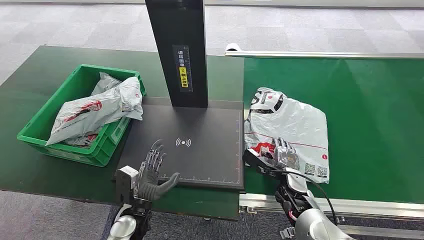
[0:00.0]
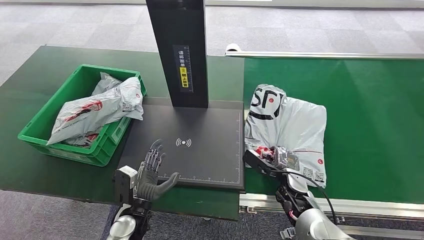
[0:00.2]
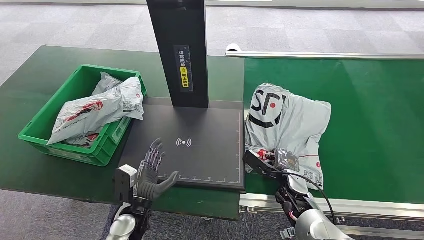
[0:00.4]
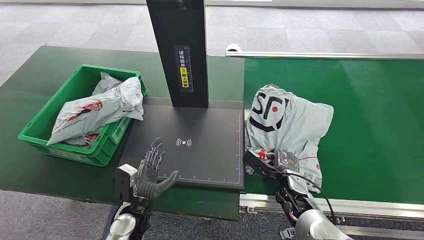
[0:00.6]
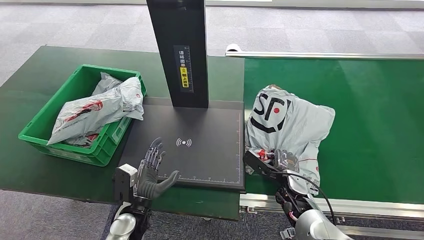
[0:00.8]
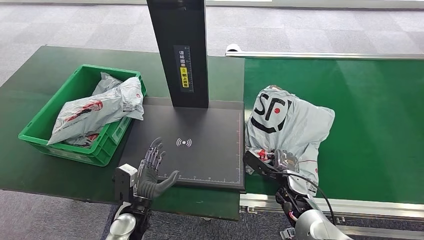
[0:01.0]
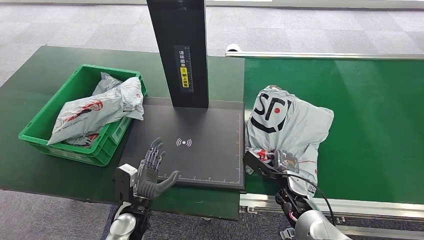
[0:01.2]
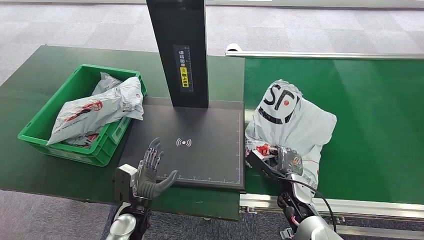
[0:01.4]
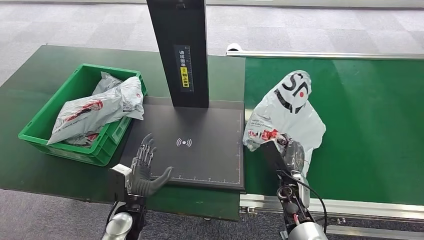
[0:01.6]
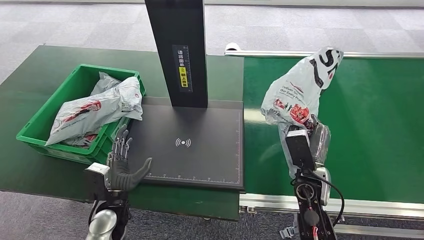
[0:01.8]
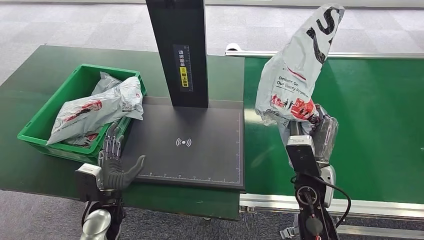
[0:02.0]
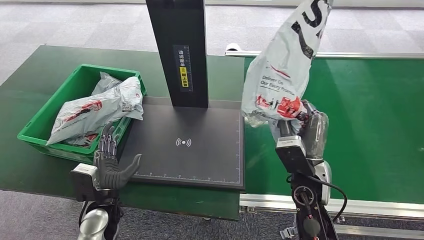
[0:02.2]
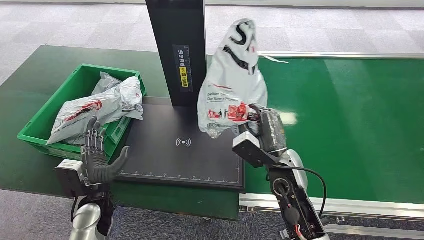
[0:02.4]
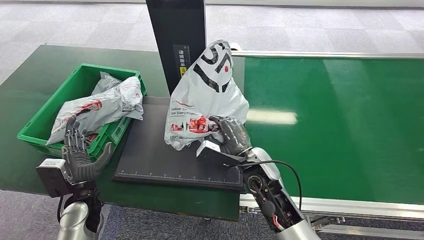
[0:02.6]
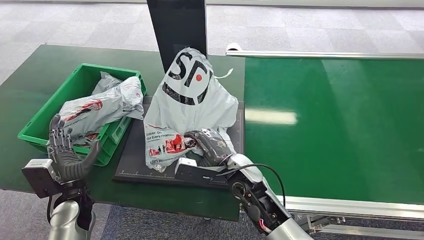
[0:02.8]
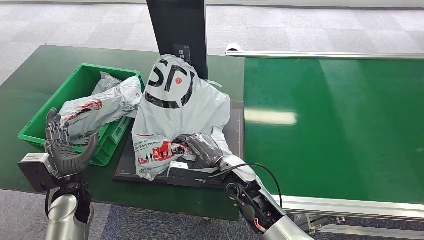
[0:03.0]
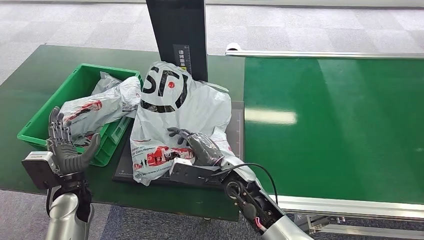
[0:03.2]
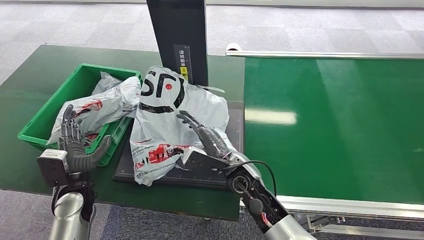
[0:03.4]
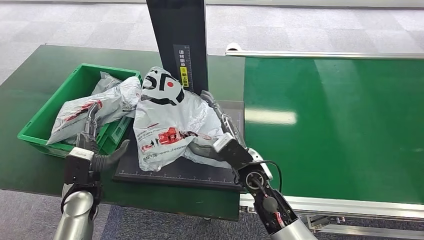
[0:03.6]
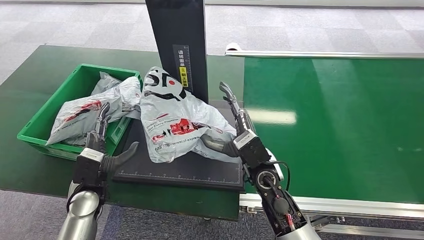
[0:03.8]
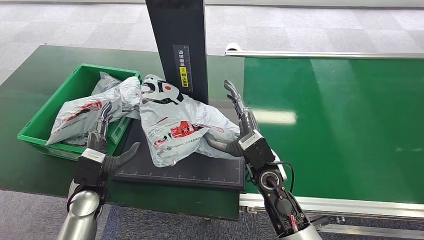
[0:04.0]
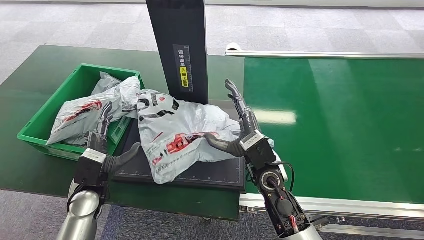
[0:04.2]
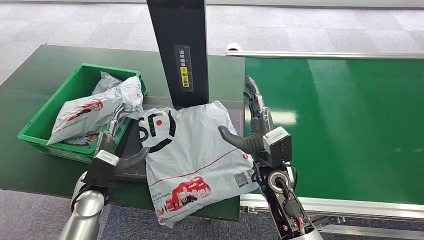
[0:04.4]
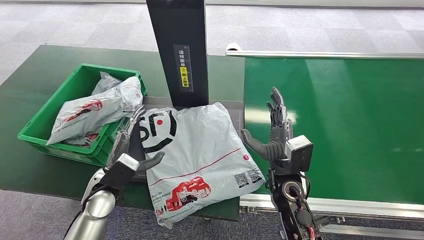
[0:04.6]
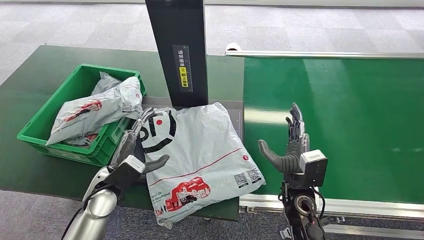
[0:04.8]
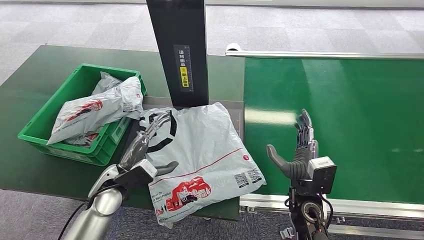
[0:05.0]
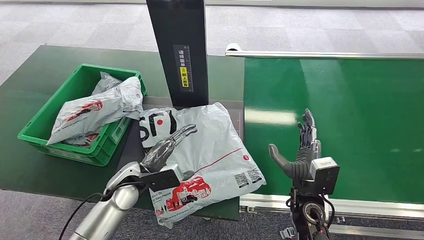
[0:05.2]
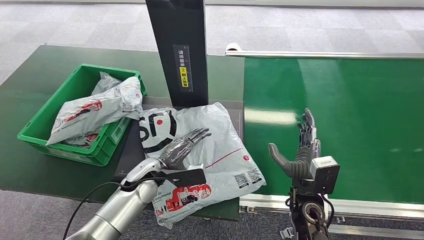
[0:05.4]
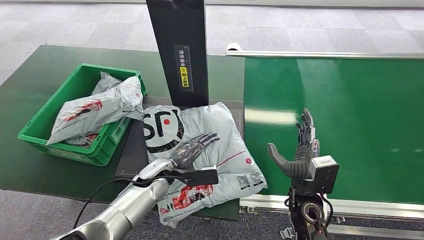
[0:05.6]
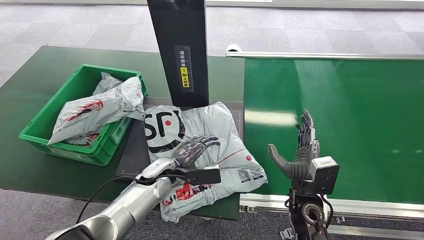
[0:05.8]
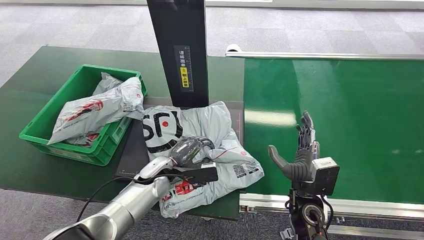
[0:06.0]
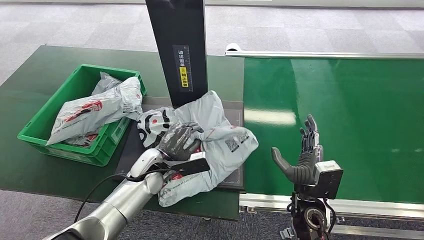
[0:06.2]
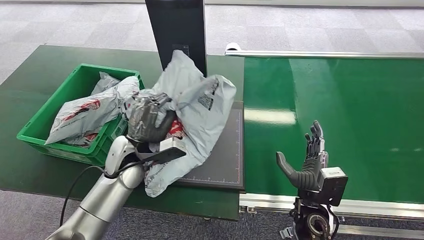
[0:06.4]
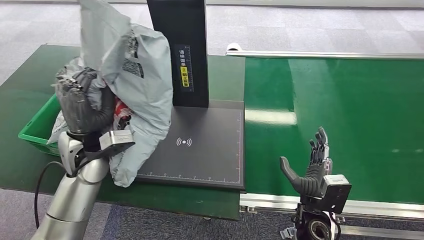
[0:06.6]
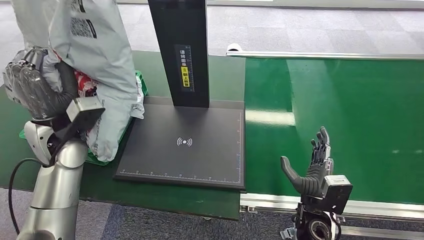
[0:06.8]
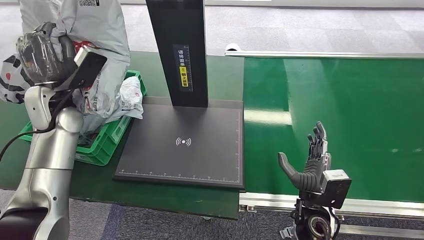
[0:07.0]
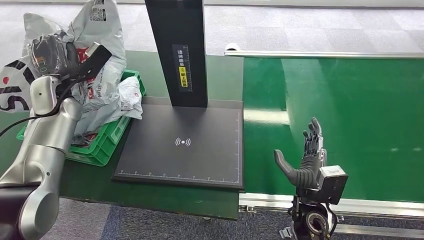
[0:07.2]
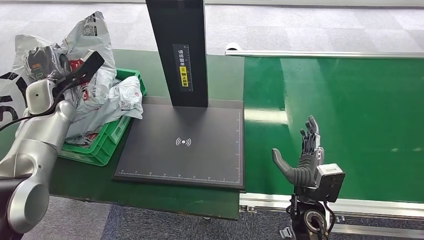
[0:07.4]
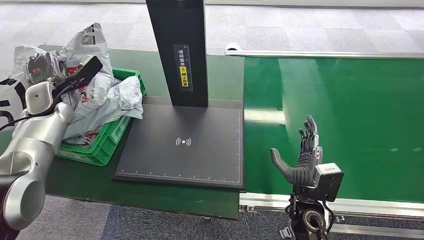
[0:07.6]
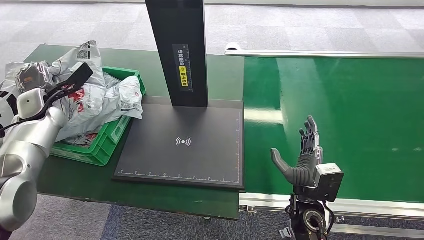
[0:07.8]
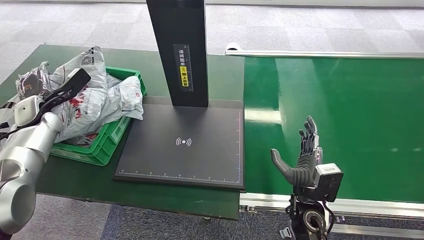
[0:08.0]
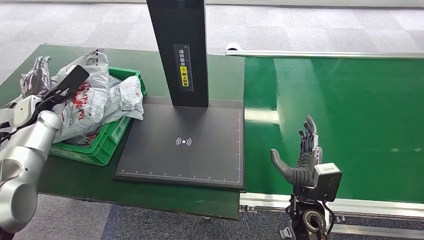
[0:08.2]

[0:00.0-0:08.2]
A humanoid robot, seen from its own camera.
Step, 0:00.0 to 0:01.6: Pick up the package from the conveyor belt.
Step, 0:01.8 to 0:04.0: Place the package onto the inbound machine.
Step, 0:04.2 to 0:06.4: Pick up the package from the inbound machine.
Step, 0:06.6 to 0:08.2: Place the package into the parcel locker.
